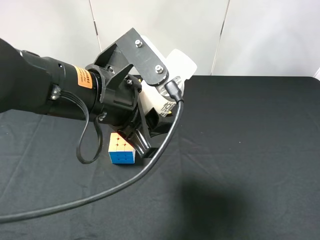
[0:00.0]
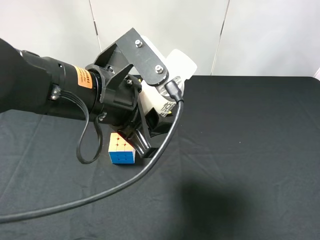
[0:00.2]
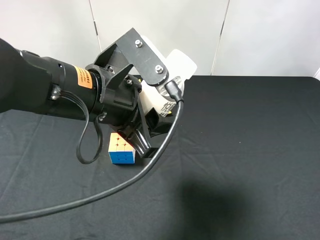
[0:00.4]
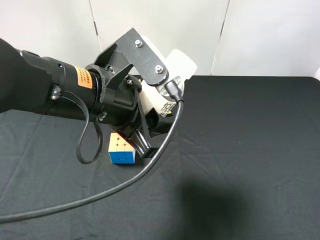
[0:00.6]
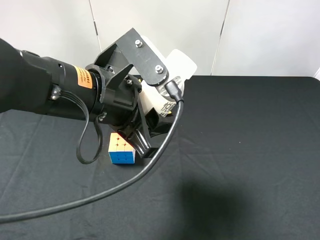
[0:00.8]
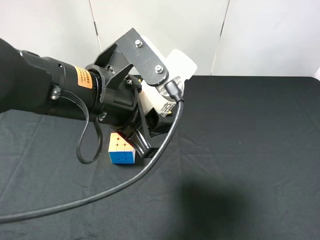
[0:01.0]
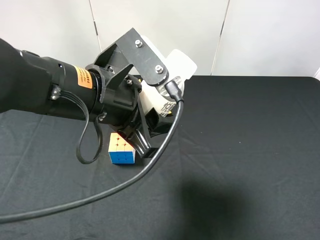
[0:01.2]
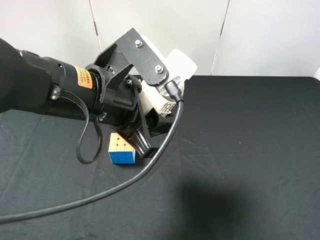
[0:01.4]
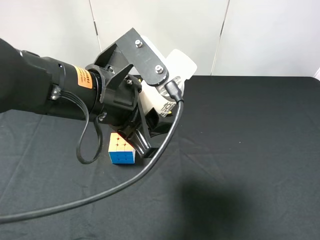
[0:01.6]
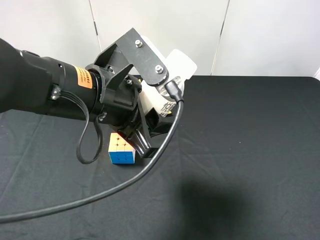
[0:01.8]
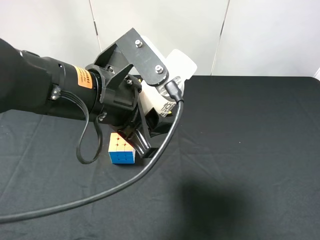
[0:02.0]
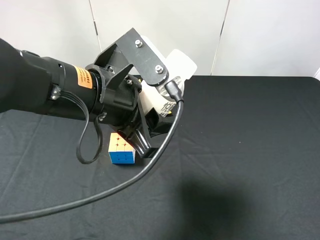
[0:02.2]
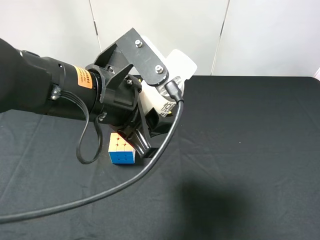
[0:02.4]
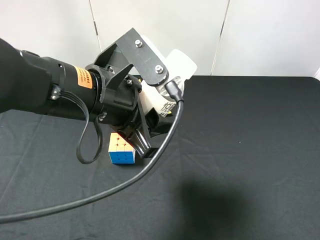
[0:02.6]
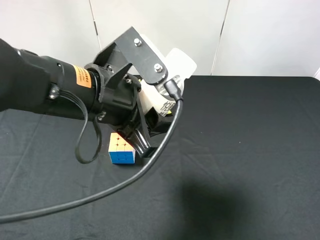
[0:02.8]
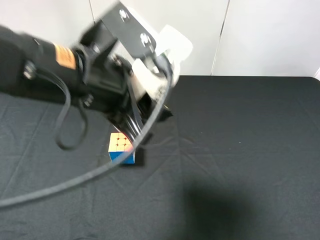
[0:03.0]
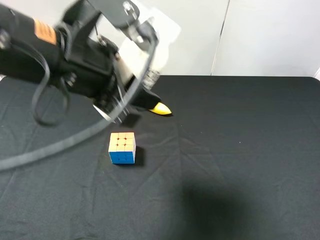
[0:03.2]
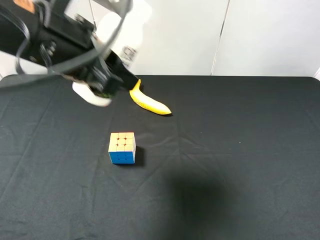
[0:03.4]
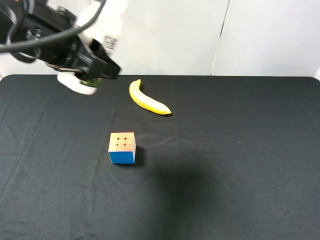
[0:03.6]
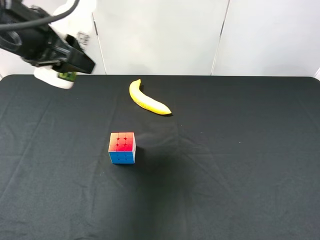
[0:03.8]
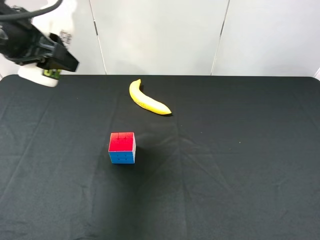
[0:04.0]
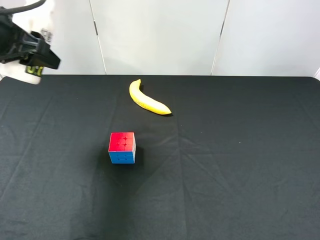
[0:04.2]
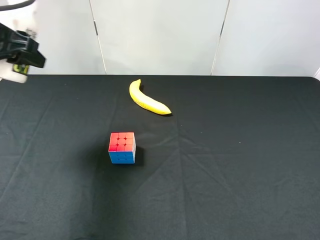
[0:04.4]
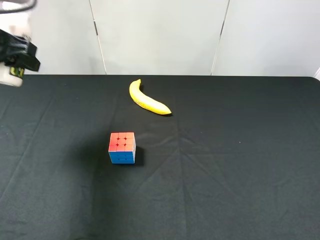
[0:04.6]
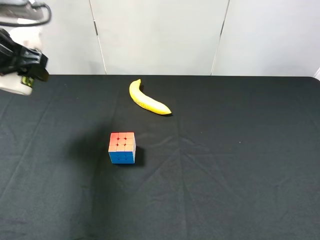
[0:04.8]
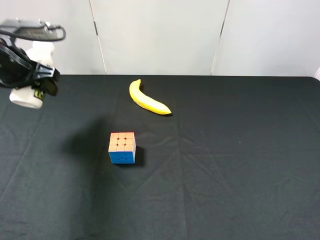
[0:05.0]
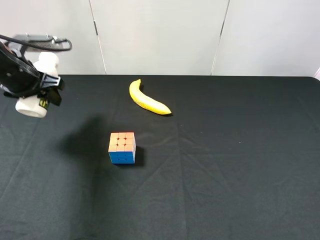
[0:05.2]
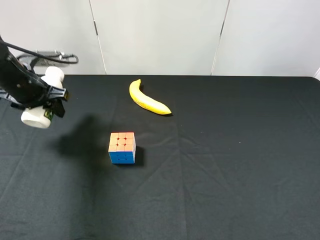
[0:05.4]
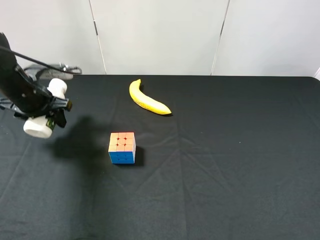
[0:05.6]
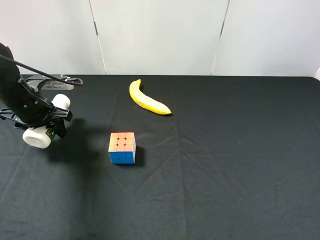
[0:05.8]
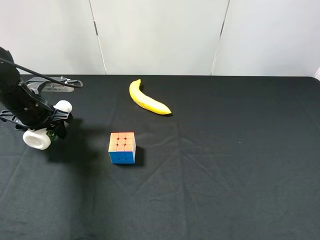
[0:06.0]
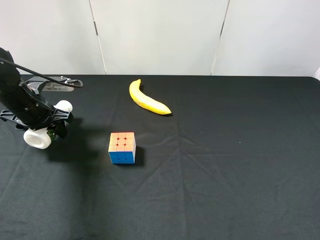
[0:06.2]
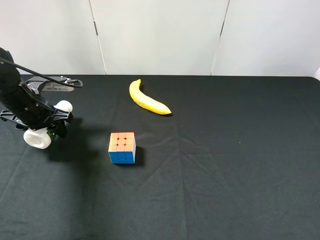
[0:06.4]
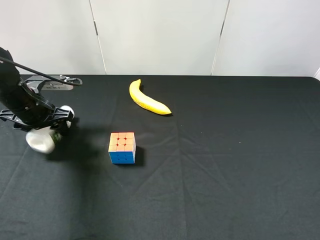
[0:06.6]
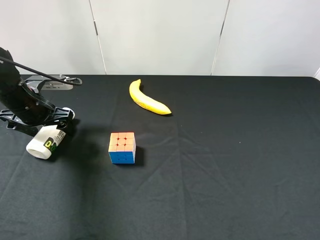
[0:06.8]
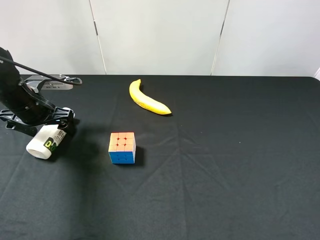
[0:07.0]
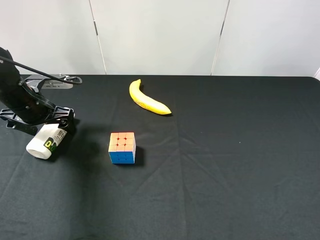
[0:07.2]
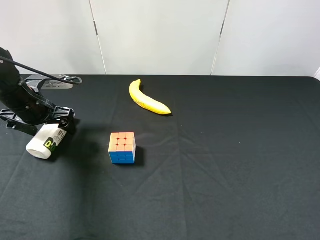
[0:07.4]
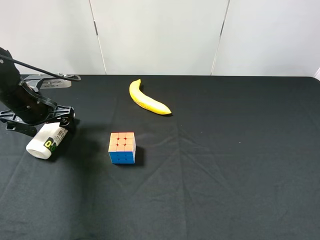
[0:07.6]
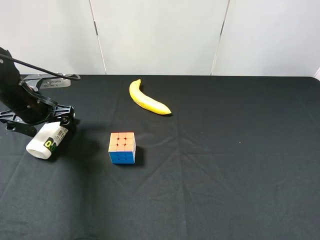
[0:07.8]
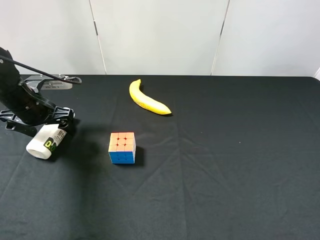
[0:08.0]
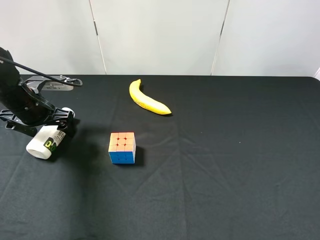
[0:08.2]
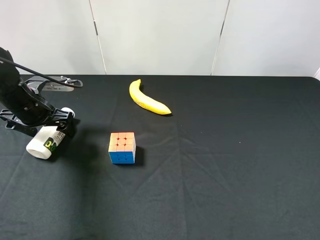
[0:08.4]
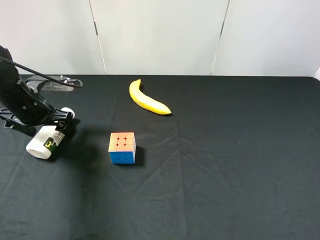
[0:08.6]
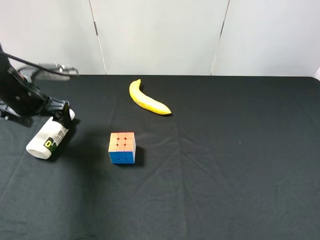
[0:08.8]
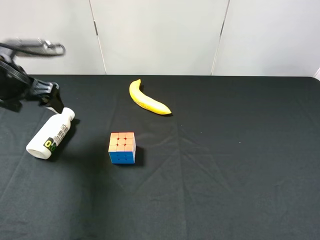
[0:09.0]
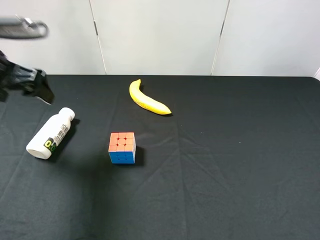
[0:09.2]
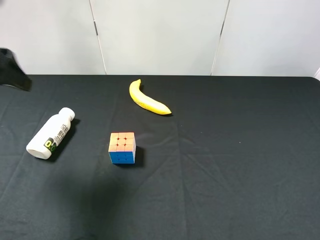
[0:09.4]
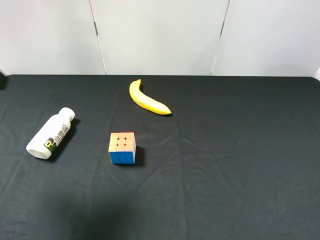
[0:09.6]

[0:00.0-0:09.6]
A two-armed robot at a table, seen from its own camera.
Task of the whole recording: use the right gripper to pick up the item and transfer it from the right gripper to the left gripper.
Step, 0:00.0 to 0:08.4: The left gripper places milk on the left side of the table.
0:01.6 to 0:03.2: The left gripper moves some 5 cm.
0:03.2 to 0:04.8: The left gripper travels to the left and forward by roughly 20 cm.
0:04.8 to 0:06.4: The left gripper is displaced downward by about 15 cm.
0:06.4 to 0:08.0: The left gripper opens.
0:08.0 to 0:09.6: The left gripper is displaced upward and backward by roughly 25 cm.

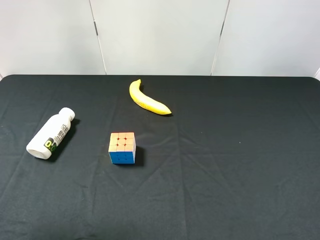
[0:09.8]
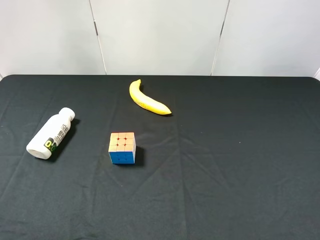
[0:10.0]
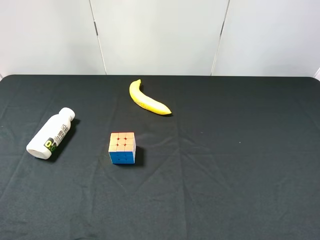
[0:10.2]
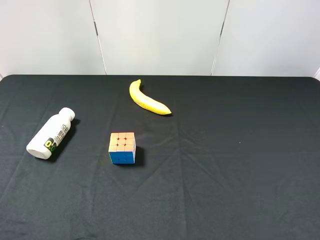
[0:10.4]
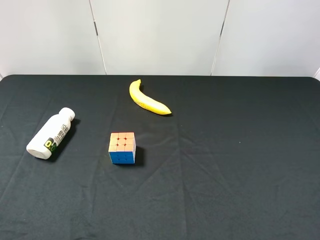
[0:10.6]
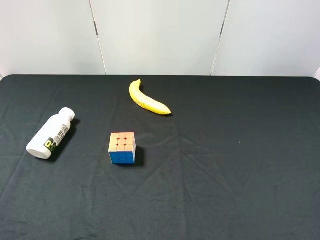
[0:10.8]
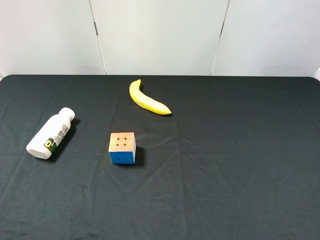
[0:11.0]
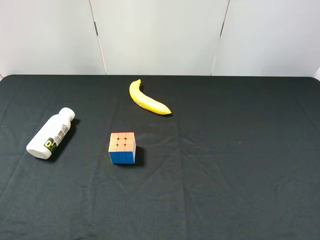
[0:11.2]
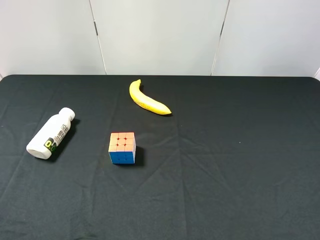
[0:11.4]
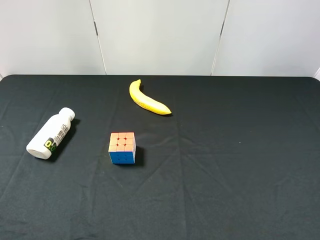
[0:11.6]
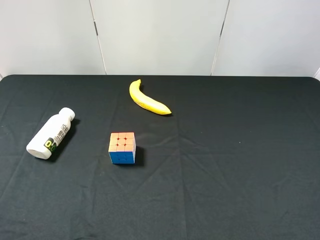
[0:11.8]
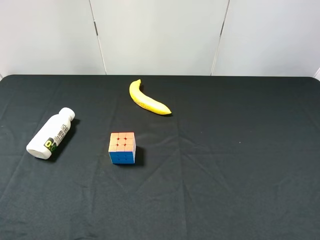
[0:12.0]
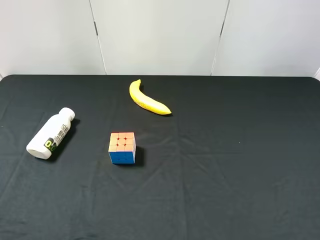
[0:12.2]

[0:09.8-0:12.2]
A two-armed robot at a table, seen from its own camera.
Task of the whole recording: use the right gripper to pick up the item and transfer it from the right gripper to the left gripper.
0:11.0 to 0:12.2: Neither gripper changes place.
